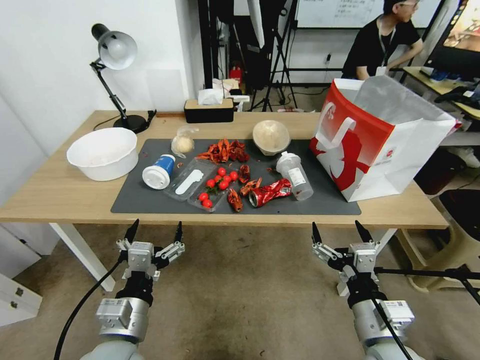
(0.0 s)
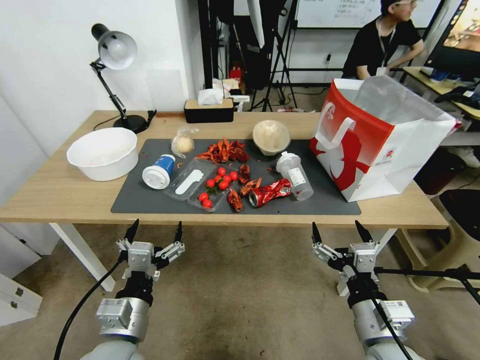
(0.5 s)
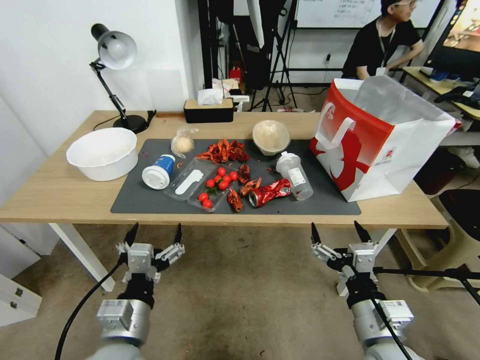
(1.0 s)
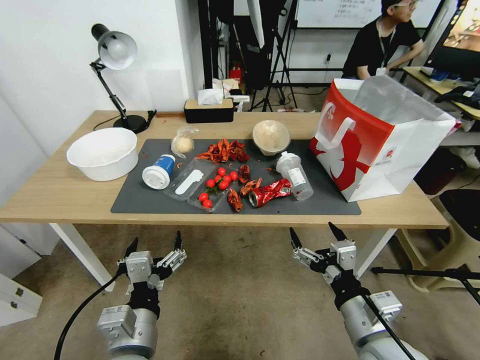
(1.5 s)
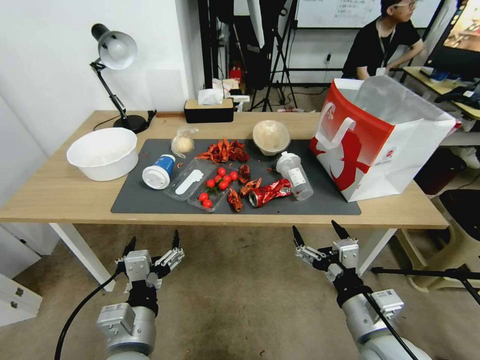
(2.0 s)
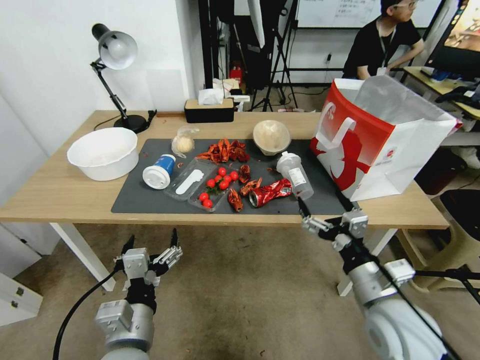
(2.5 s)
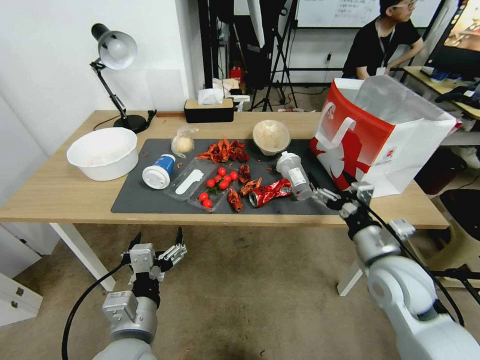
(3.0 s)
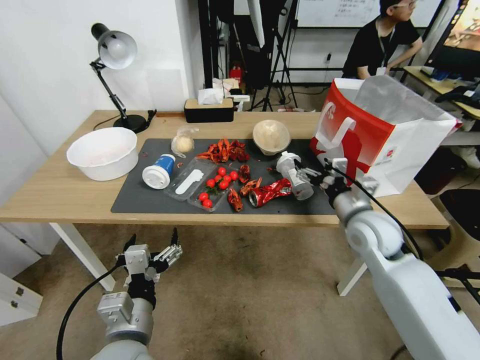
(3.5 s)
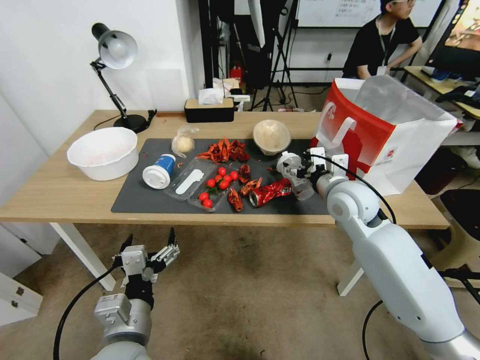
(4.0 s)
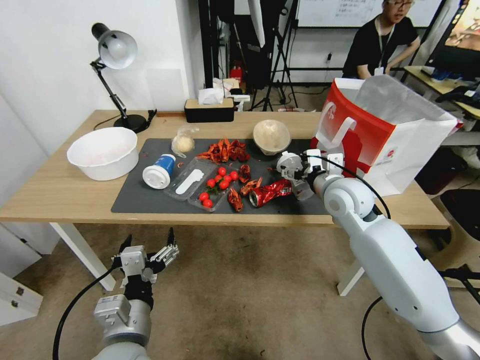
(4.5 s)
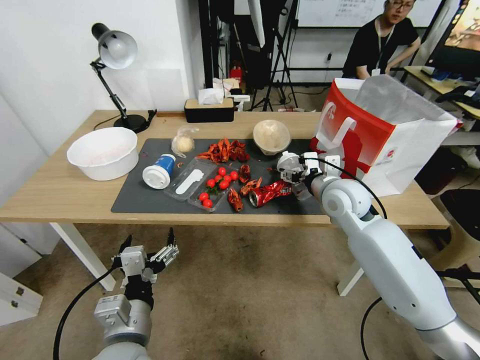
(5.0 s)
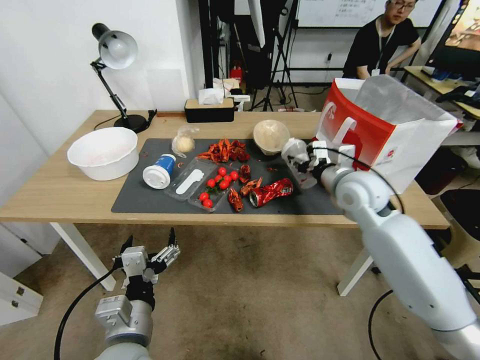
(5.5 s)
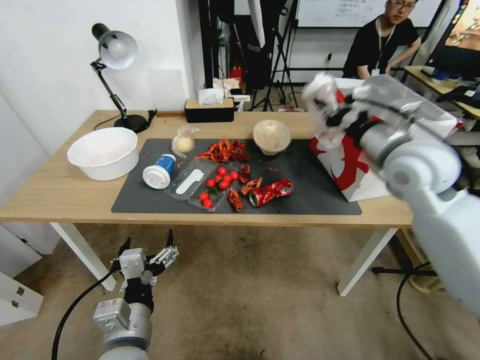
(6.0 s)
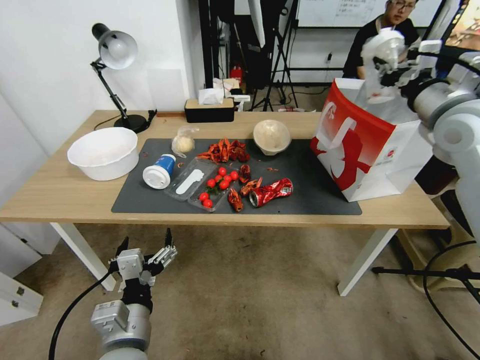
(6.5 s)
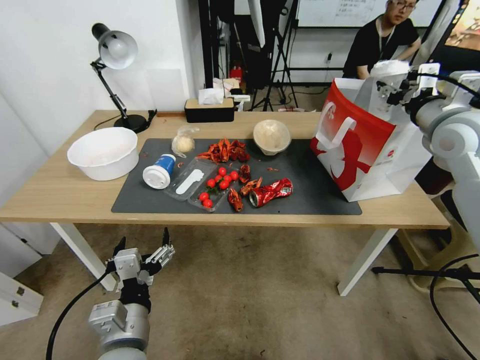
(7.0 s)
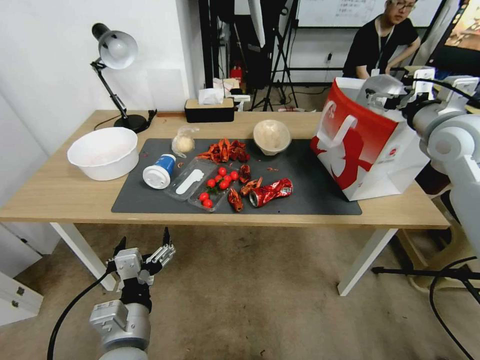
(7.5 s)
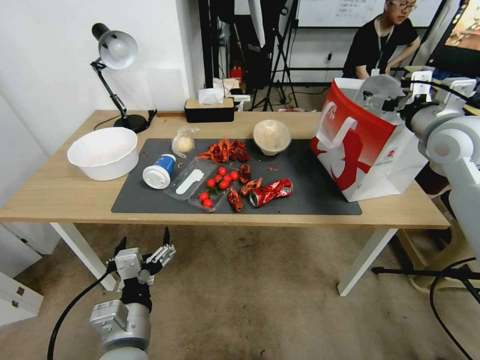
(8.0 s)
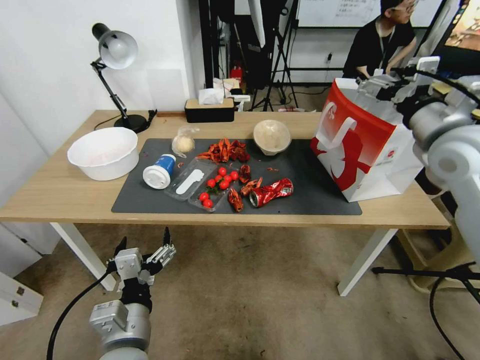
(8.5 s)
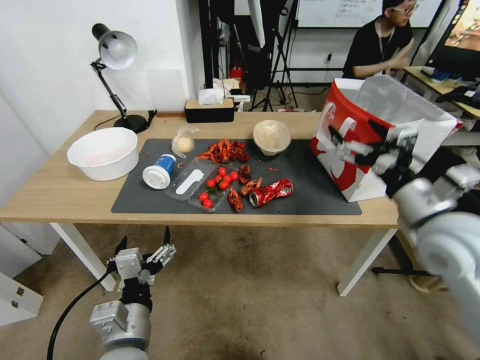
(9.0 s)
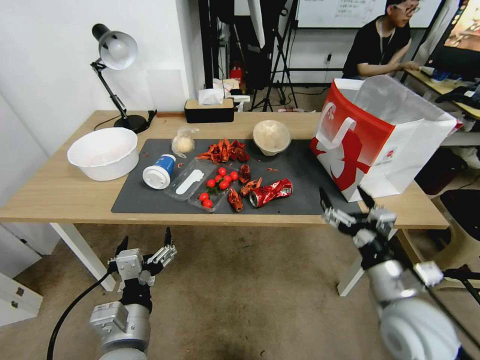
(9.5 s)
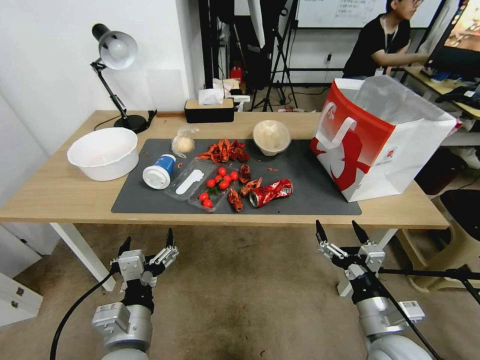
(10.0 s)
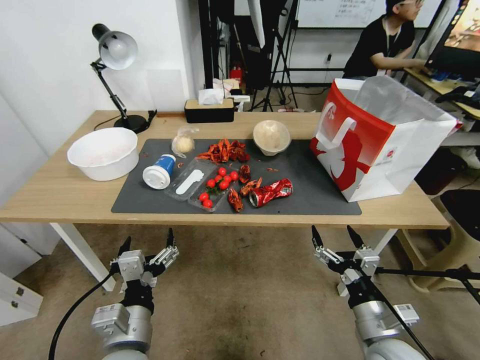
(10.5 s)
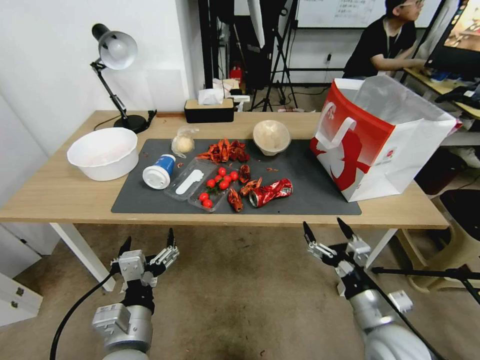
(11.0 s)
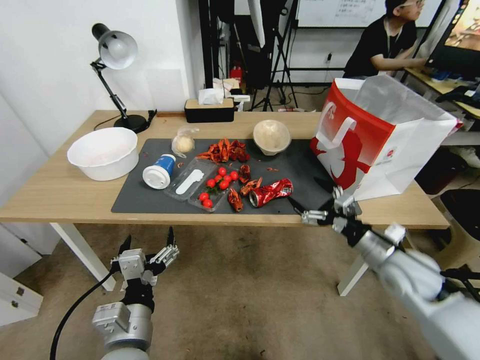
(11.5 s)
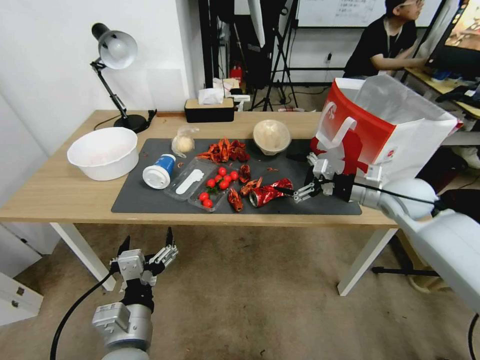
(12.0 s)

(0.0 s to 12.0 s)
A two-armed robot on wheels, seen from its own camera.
2.0 s - 4.0 s: The right gripper travels forward by roughly 25 cm.
4.0 s - 6.0 s: The right gripper heads upward, covering about 10 cm, and closes.
6.0 s - 8.0 s: The right gripper travels to the right and upward by about 15 cm, and opens.
8.0 s - 10.0 s: The right gripper travels downward and backward by some 40 cm.
10.0 s - 12.0 s: The right gripper shifts approximately 30 cm forward and upward.

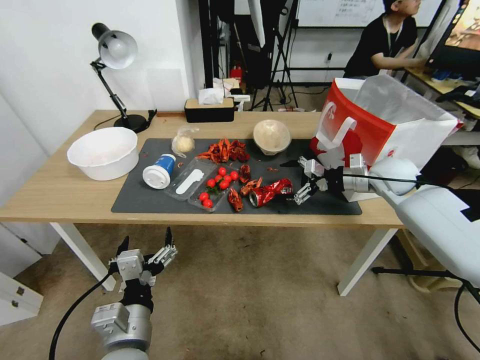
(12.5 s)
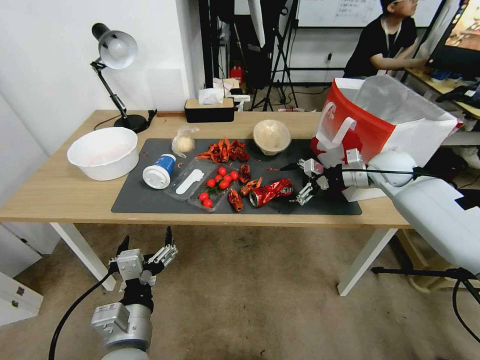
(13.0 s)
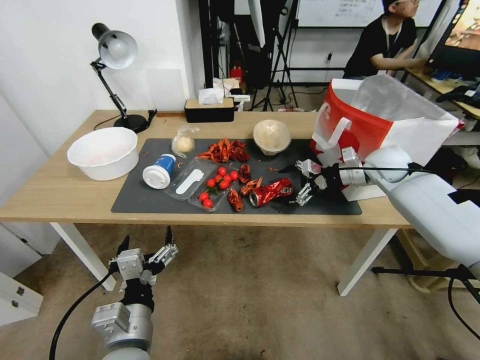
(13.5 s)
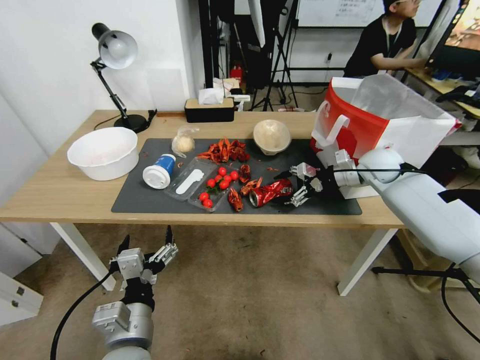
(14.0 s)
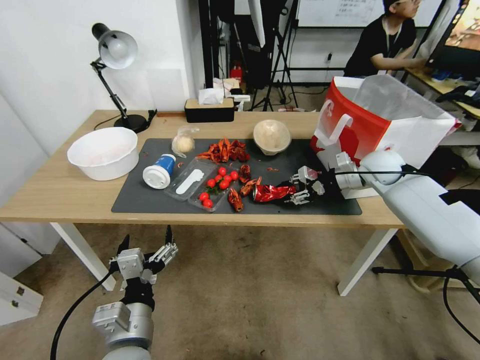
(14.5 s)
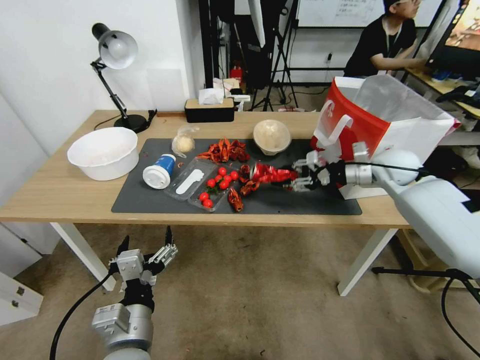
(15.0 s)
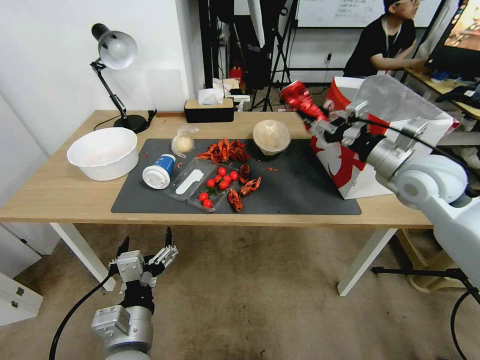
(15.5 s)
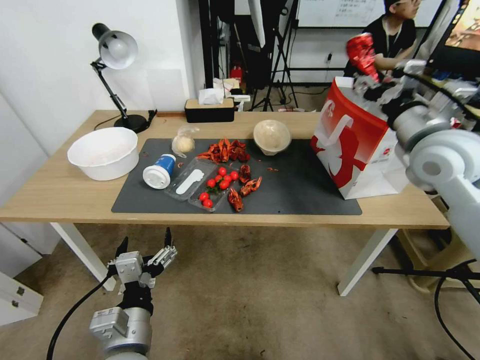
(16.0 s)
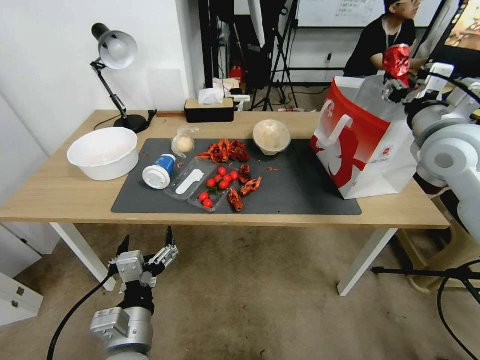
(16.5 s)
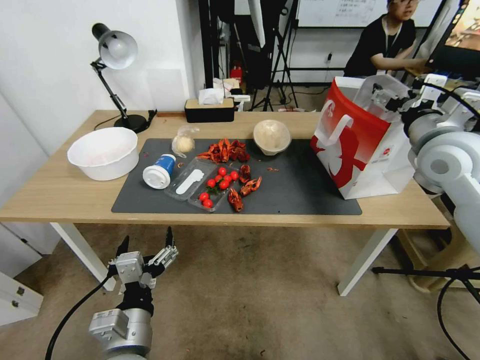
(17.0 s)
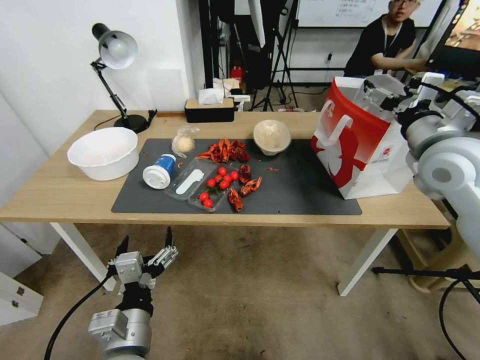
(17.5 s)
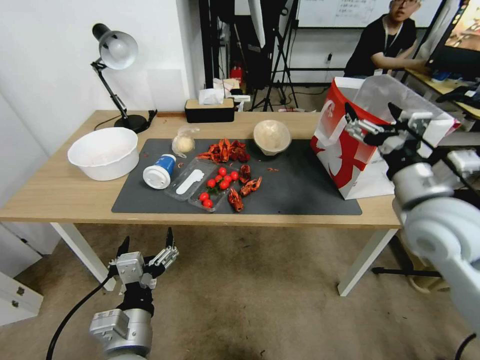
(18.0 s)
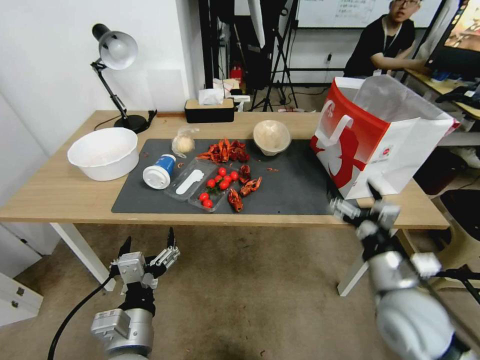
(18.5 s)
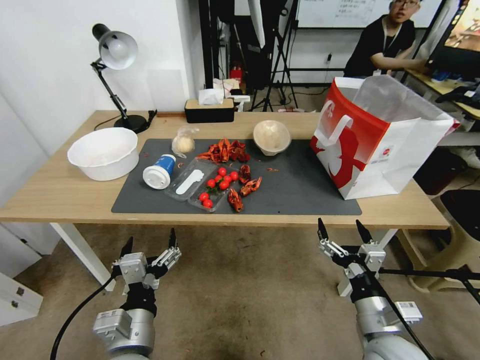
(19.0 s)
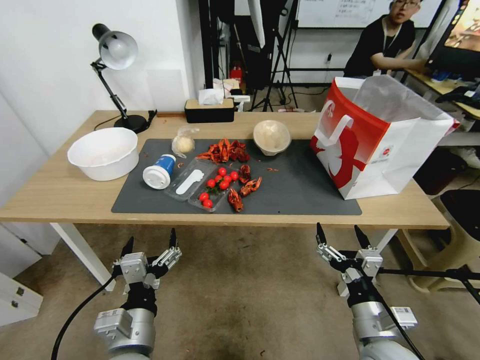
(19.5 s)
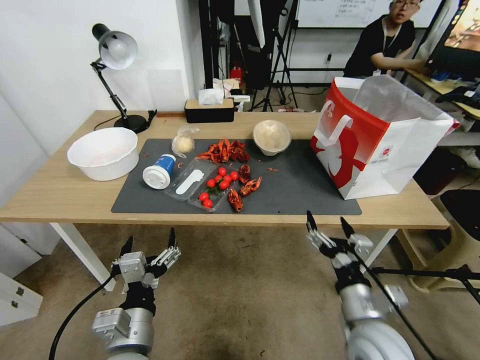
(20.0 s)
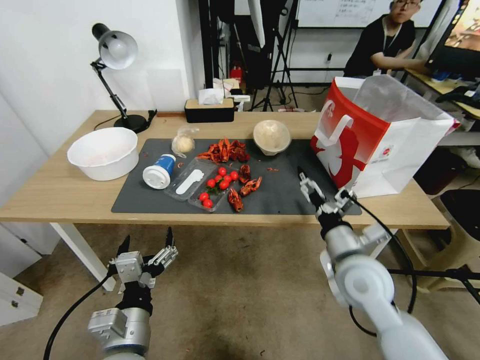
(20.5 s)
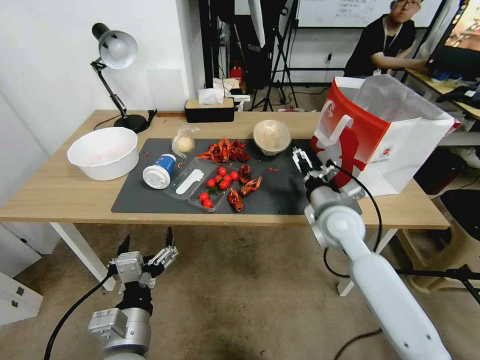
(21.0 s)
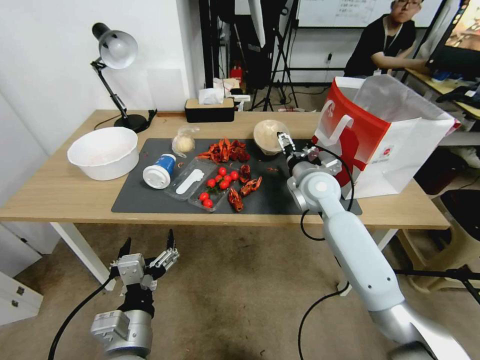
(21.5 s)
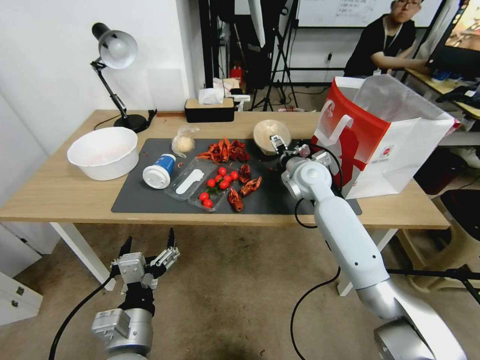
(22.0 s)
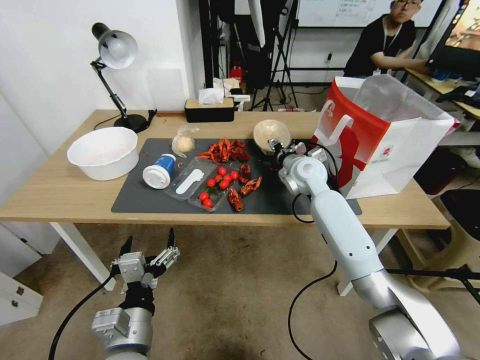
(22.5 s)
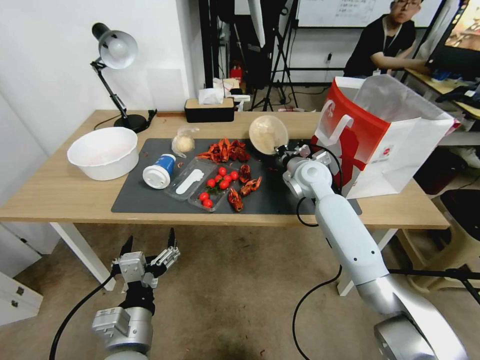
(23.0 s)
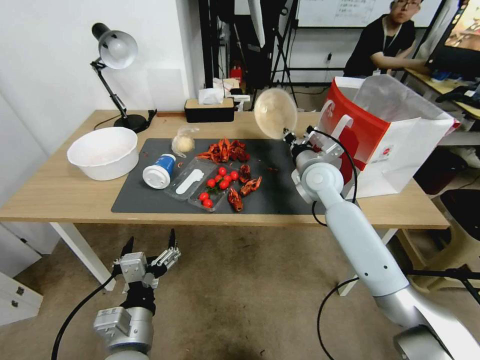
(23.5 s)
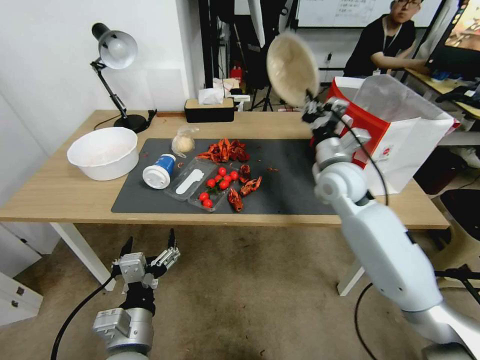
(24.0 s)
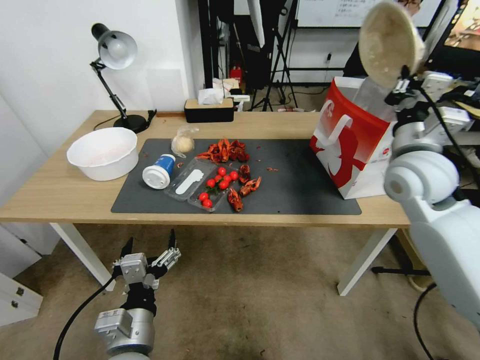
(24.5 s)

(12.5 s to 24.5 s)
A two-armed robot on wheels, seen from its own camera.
12.5 s - 14.5 s: The right gripper closes its fingers.
14.5 s - 16.5 s: The right gripper moves upward and backward, approximately 20 cm.
16.5 s - 18.5 s: The right gripper shifts about 30 cm downward and backward, and opens up.
18.5 s - 20.5 s: The right gripper goes some 5 cm to the left.
20.5 s - 22.5 s: The right gripper shifts approximately 25 cm forward, and closes.
22.5 s - 24.5 s: The right gripper moves backward, upward and to the right, about 20 cm, and closes up.

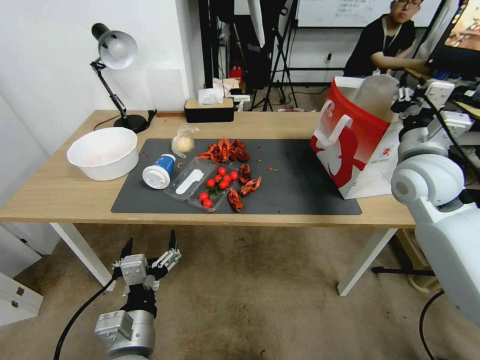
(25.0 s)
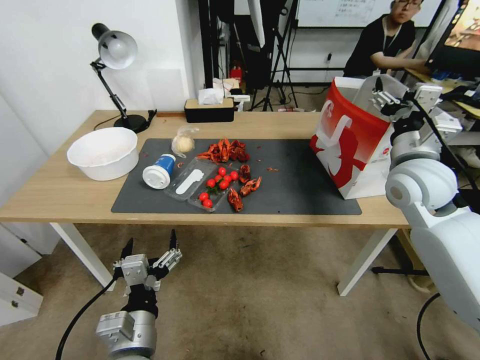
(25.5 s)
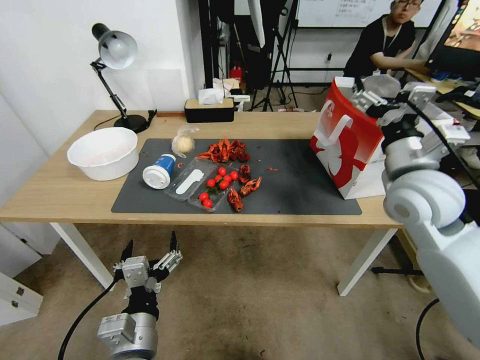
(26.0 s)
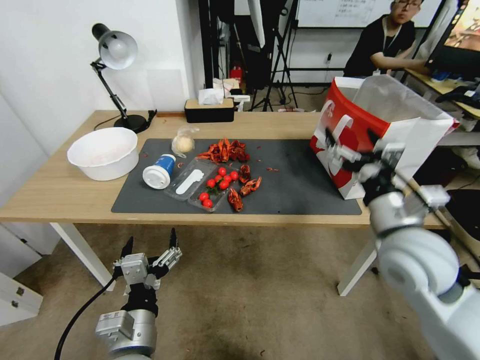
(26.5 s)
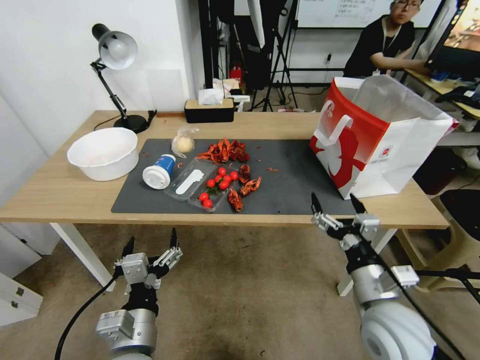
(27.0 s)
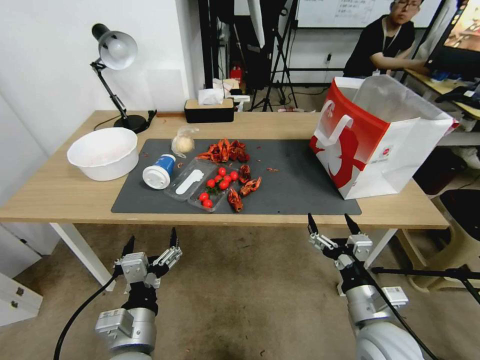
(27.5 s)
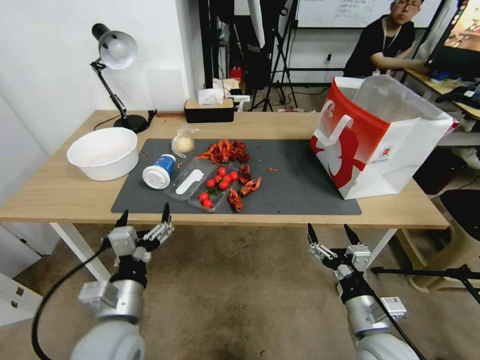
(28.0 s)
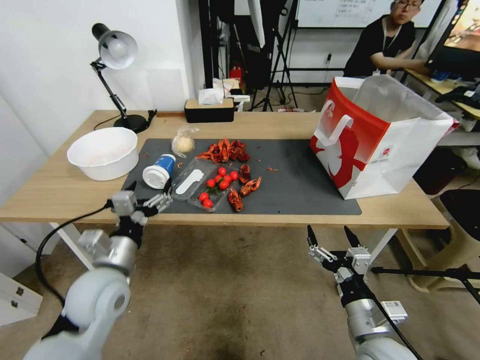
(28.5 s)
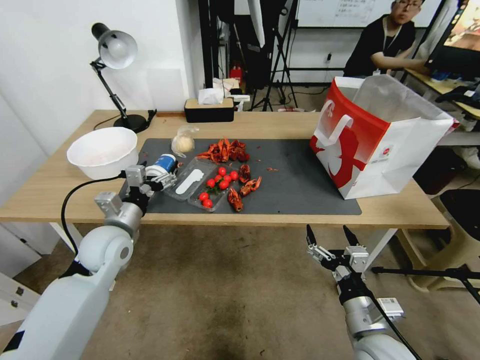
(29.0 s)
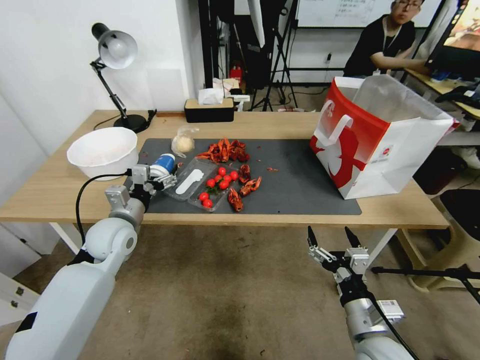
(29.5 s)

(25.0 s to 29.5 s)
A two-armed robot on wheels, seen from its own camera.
25.0 s - 27.0 s: The right gripper travels backward and downward by some 25 cm, and opens.
27.0 s - 29.5 s: The left gripper travels forward and to the left by roughly 25 cm. Meanwhile the right gripper travels downward and backward by some 10 cm.
